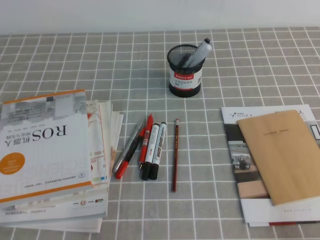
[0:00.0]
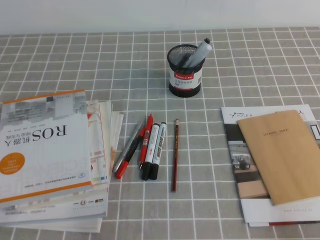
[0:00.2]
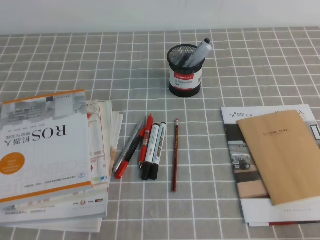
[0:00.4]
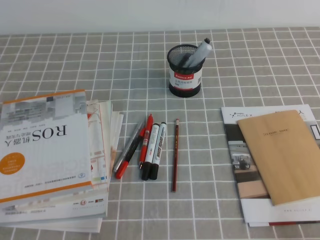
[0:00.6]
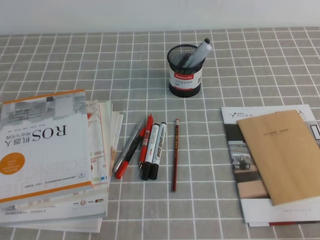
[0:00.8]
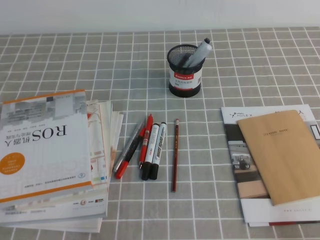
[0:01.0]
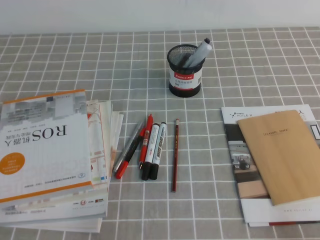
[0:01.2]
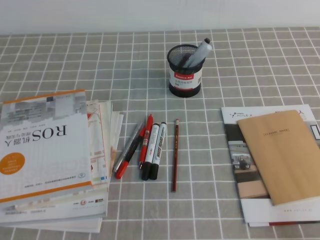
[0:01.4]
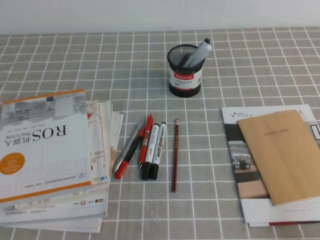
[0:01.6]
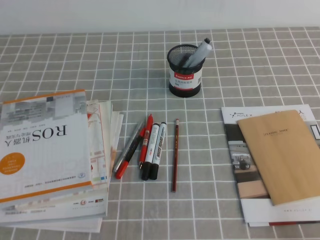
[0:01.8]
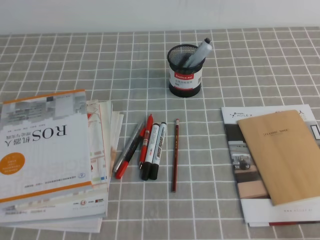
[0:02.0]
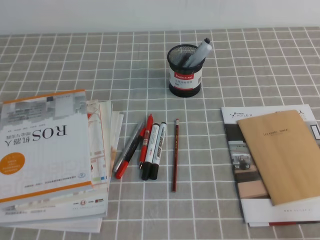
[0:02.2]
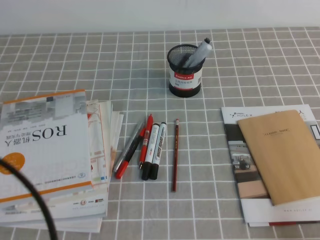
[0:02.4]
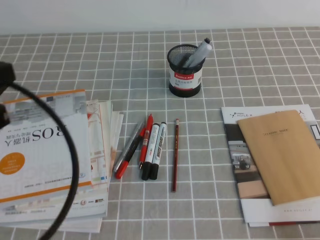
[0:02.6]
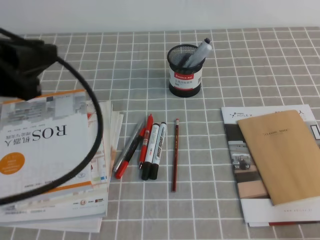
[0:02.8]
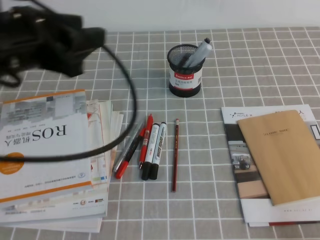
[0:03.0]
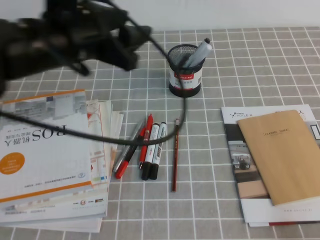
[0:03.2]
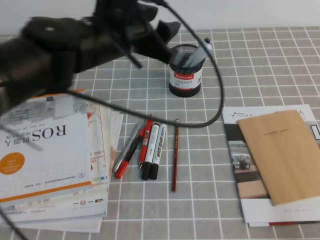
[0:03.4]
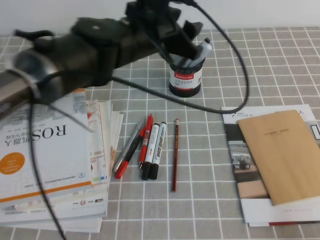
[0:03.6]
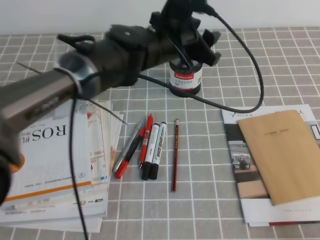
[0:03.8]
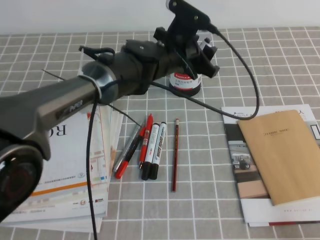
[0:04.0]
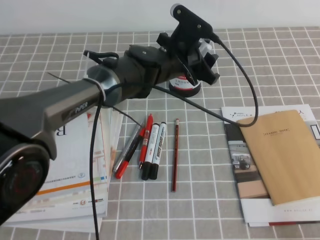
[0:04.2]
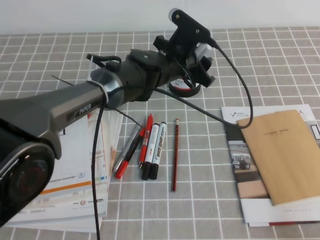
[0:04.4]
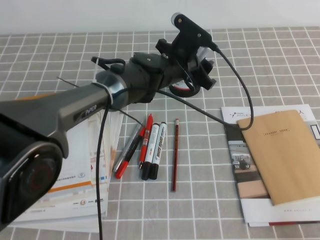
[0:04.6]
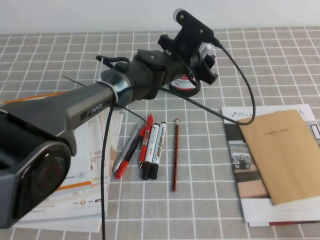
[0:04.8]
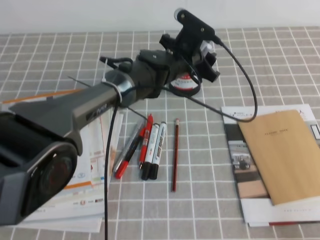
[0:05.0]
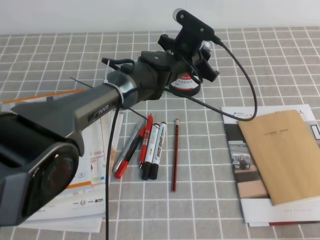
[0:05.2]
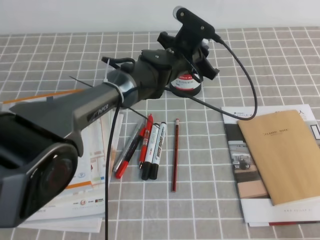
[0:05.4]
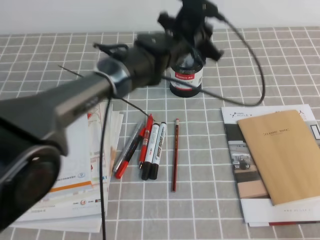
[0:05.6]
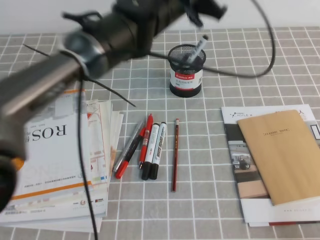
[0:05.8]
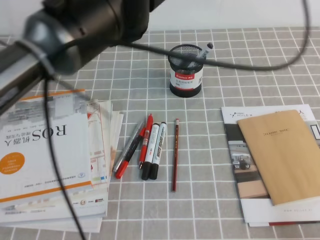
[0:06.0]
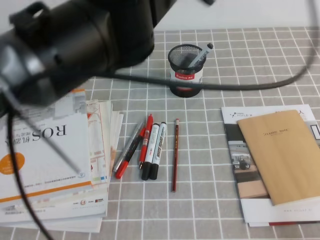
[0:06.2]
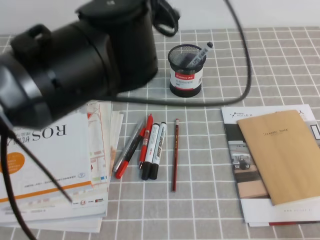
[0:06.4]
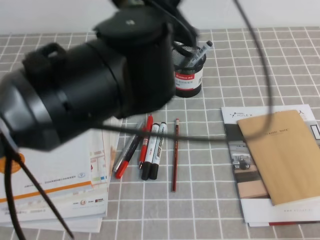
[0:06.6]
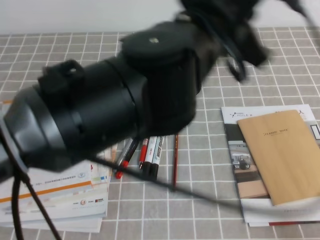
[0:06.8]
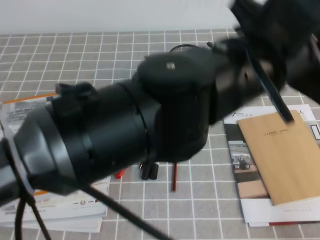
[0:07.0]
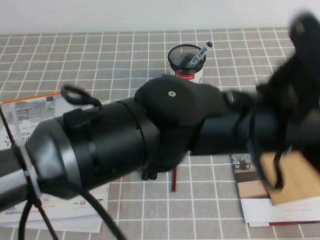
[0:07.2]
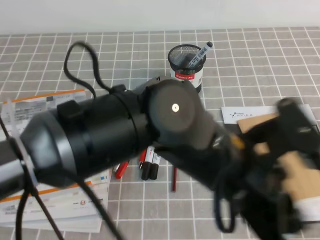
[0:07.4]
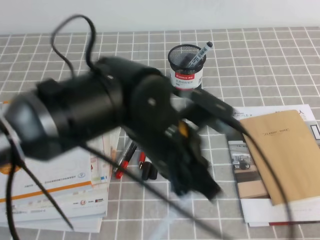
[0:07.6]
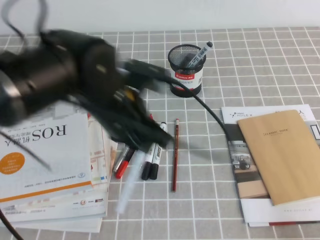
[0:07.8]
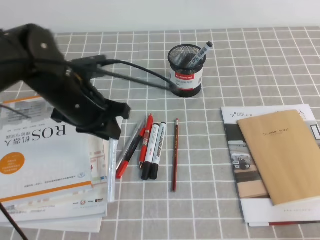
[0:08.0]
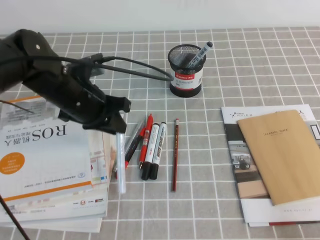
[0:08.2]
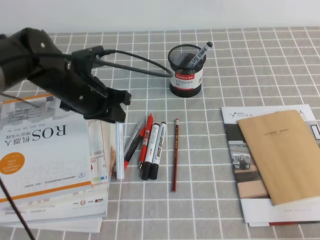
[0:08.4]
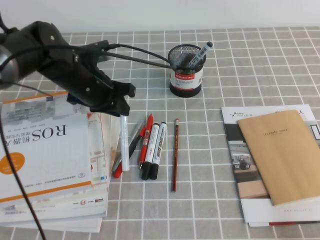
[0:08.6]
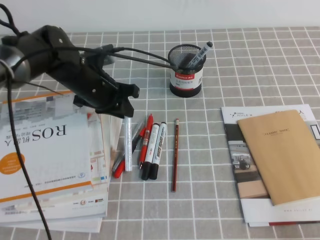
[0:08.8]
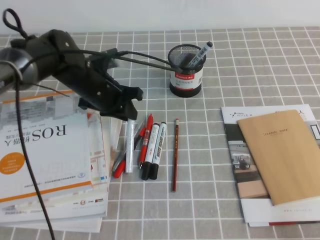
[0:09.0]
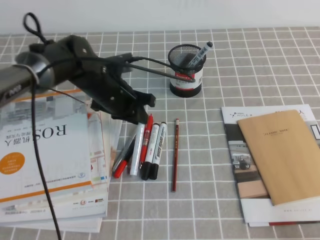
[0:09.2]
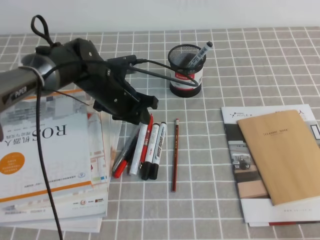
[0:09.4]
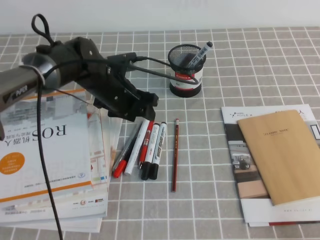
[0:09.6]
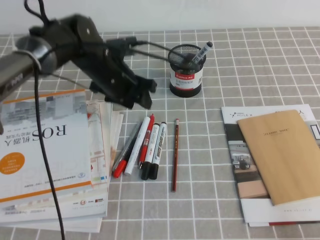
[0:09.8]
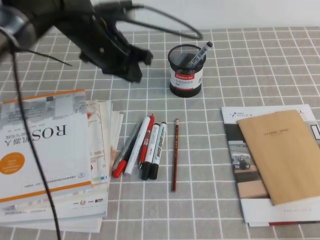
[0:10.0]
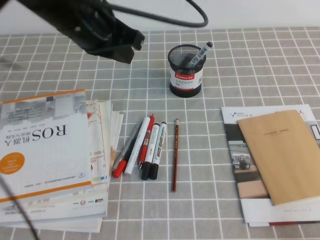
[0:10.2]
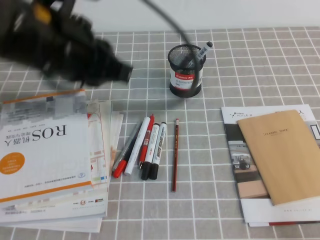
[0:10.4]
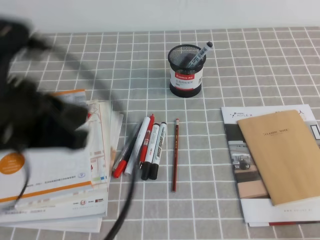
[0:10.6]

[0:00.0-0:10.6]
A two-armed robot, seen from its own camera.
0:01.6 to 0:03.0: The left gripper shifts some 30 cm forward, upward and to the right, and opens its fingers.
0:03.0 to 0:04.6: The left gripper moves to the right, forward and downward, some 30 cm.
0:04.6 to 0:06.0: The left gripper shifts roughly 20 cm upward, and closes up.
0:06.0 to 0:07.6: The left gripper heads backward and downward, covering some 20 cm.
0:07.6 to 0:09.0: The left gripper travels forward, to the left and downward by approximately 25 cm.
0:09.0 to 0:10.6: The left gripper is displaced backward and upward by approximately 30 cm, and opens, then closes again.

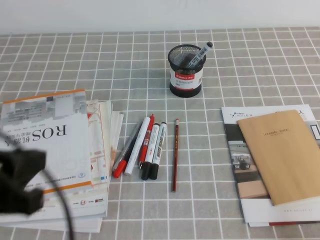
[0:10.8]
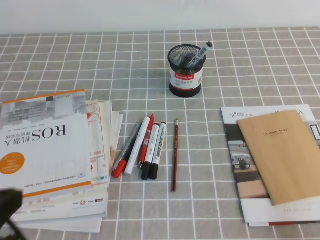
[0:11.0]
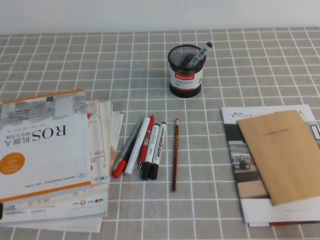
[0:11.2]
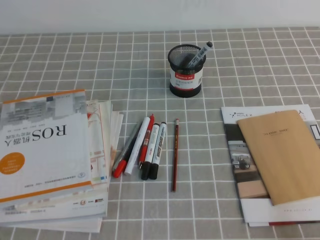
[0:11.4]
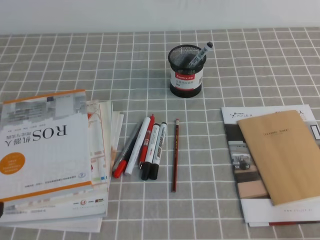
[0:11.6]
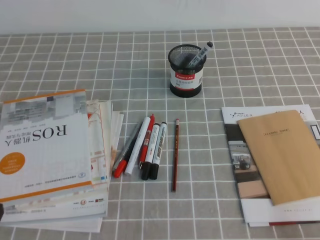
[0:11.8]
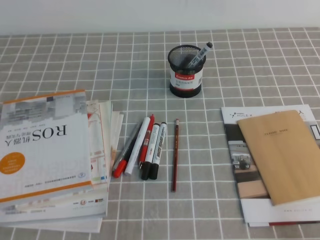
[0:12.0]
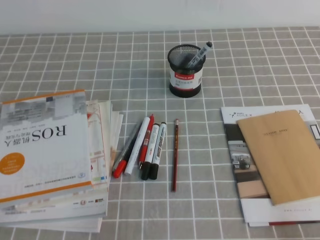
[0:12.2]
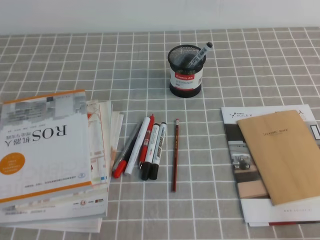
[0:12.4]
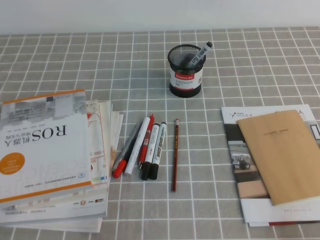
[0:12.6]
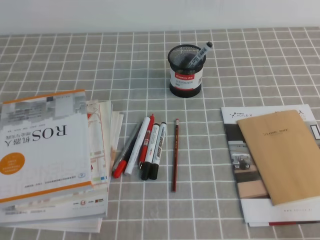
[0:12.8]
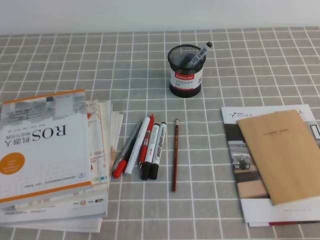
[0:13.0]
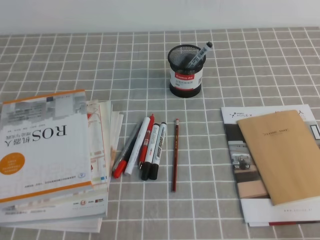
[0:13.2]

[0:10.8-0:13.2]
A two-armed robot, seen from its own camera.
Step, 0:10.8 to 0:13.2: Pick up the pen from the pen holder.
0:10.8 to 0:12.0: The left gripper moves downward and to the left, some 15 cm.
